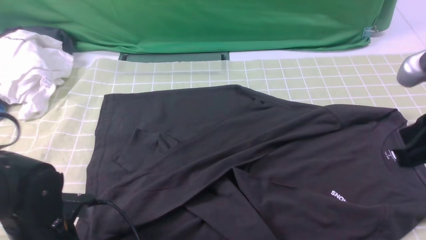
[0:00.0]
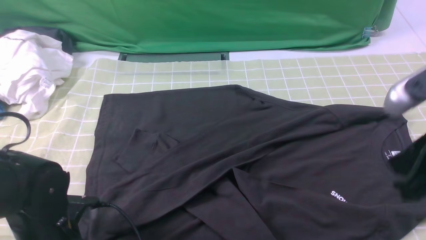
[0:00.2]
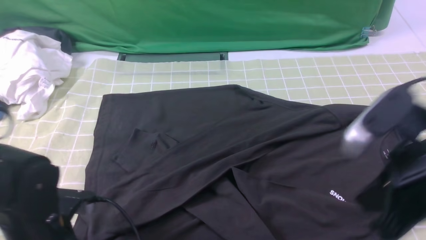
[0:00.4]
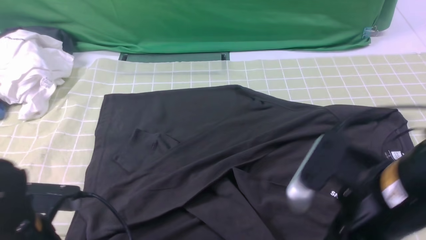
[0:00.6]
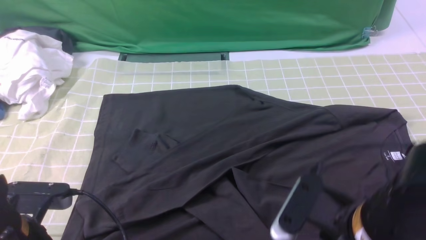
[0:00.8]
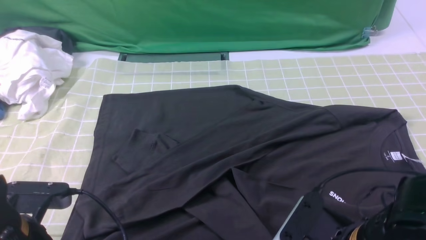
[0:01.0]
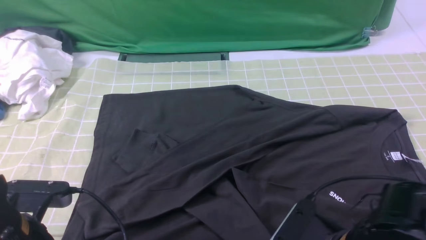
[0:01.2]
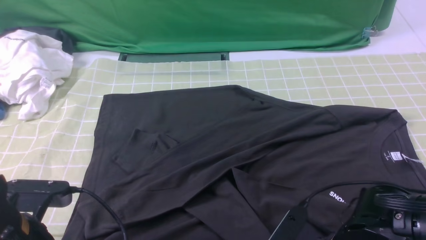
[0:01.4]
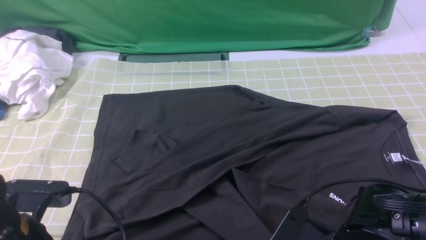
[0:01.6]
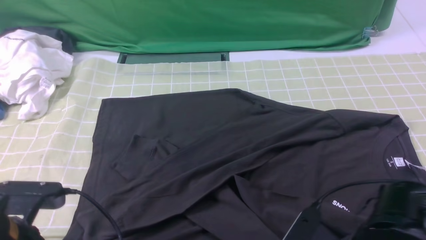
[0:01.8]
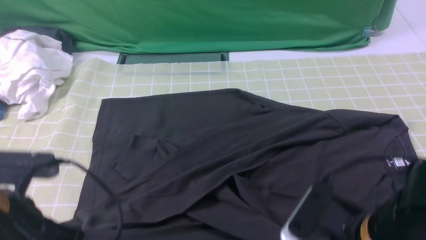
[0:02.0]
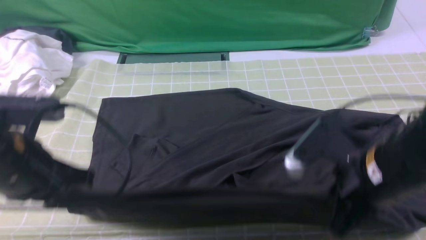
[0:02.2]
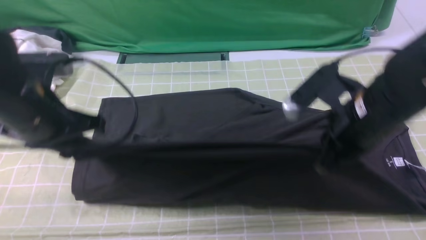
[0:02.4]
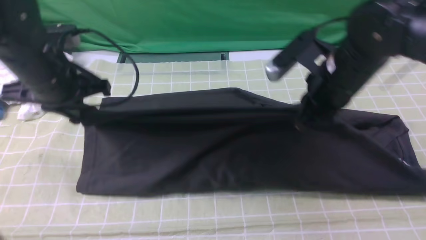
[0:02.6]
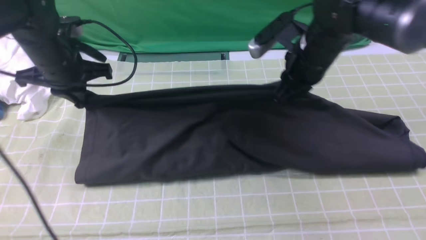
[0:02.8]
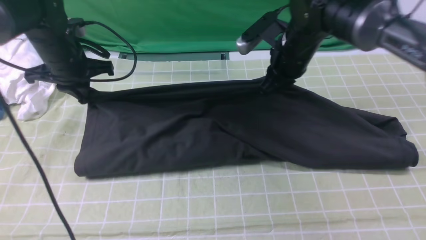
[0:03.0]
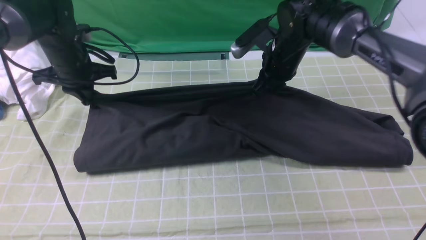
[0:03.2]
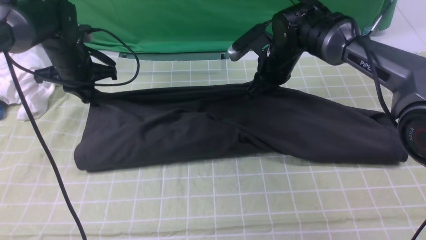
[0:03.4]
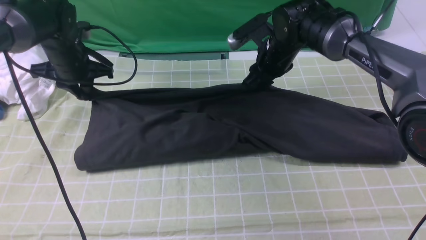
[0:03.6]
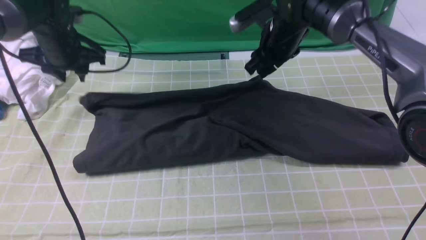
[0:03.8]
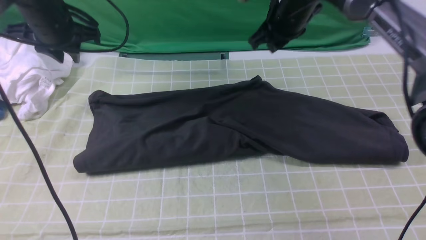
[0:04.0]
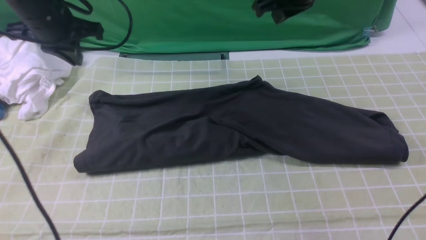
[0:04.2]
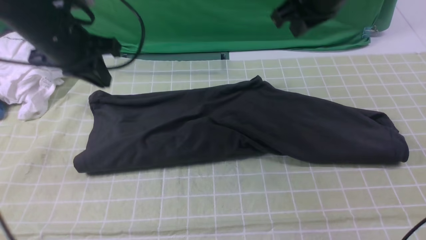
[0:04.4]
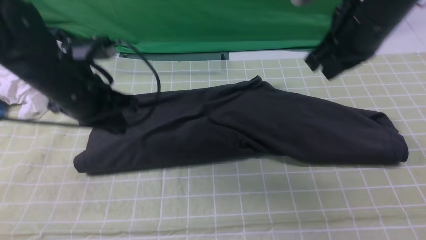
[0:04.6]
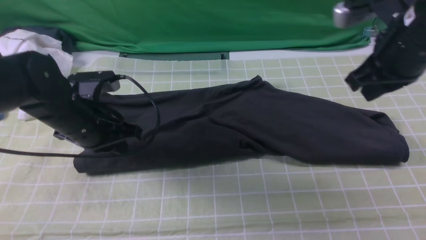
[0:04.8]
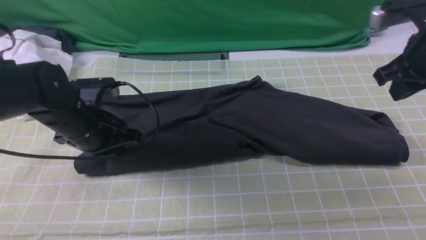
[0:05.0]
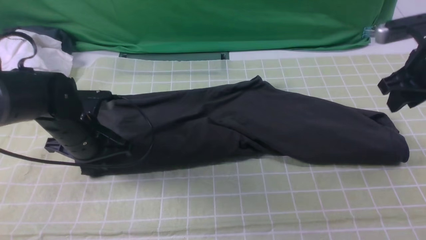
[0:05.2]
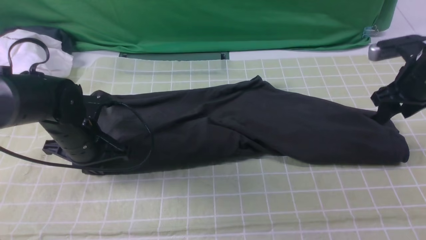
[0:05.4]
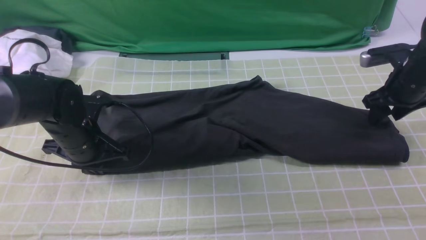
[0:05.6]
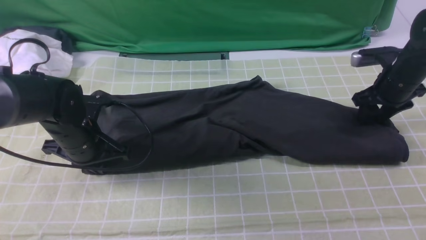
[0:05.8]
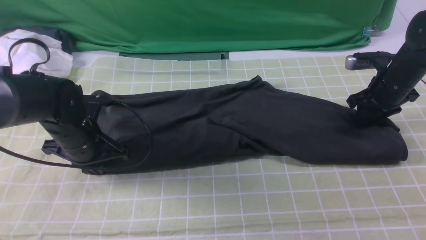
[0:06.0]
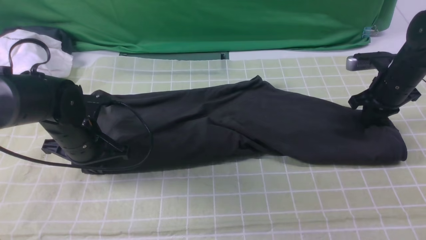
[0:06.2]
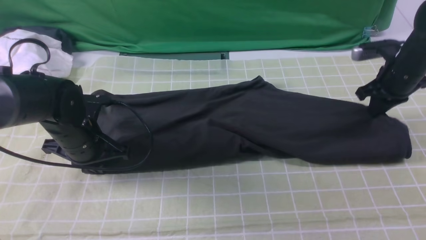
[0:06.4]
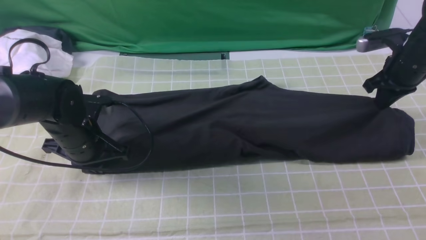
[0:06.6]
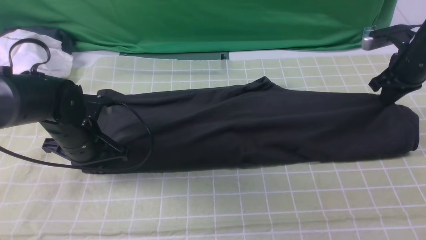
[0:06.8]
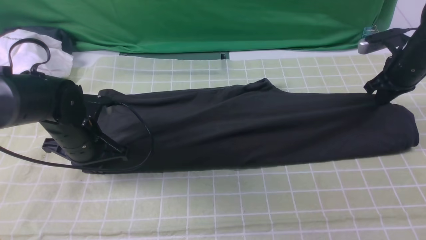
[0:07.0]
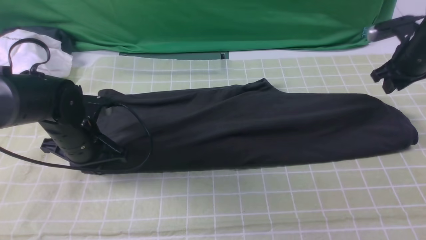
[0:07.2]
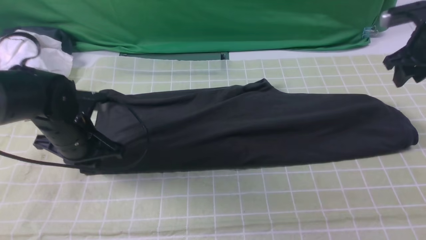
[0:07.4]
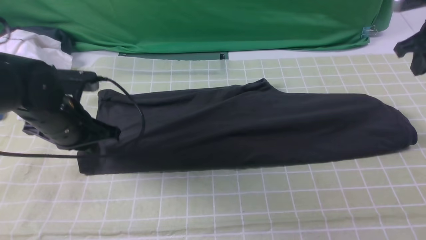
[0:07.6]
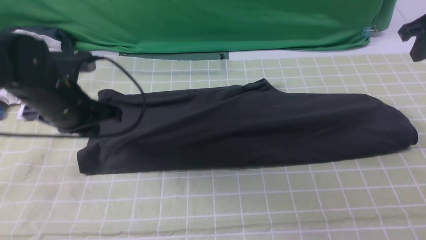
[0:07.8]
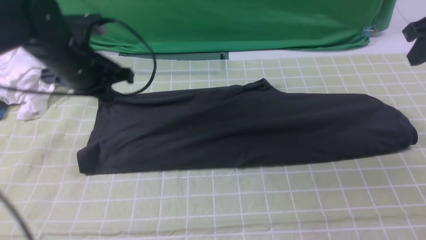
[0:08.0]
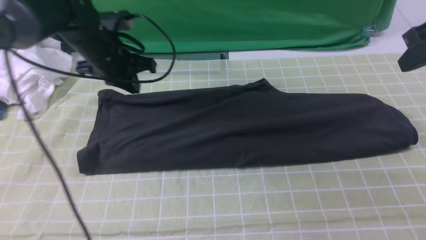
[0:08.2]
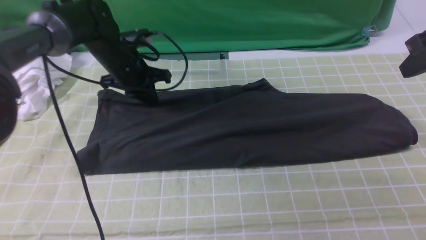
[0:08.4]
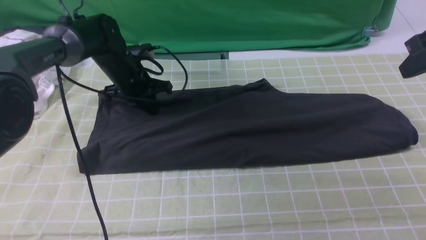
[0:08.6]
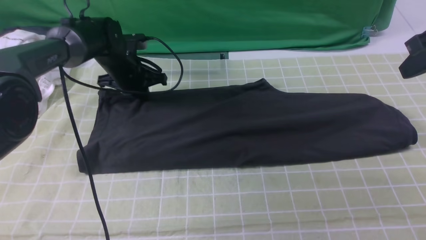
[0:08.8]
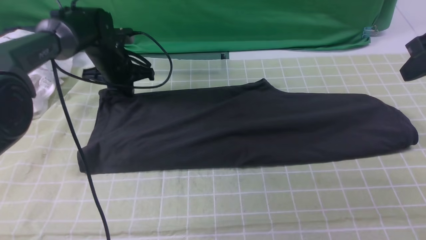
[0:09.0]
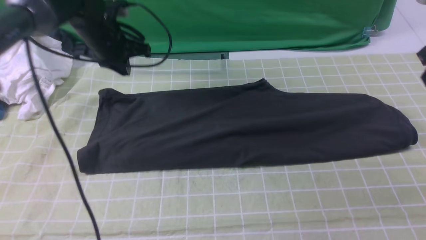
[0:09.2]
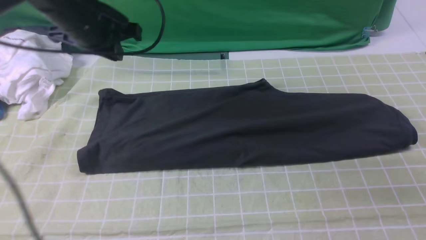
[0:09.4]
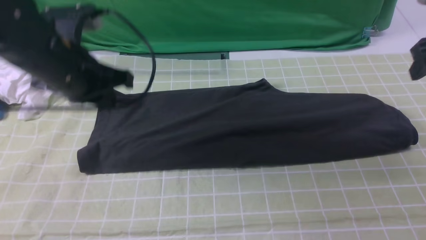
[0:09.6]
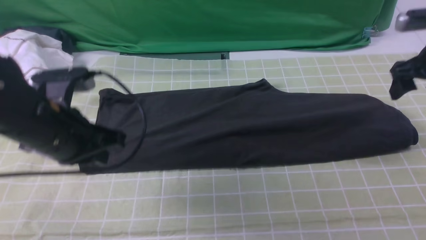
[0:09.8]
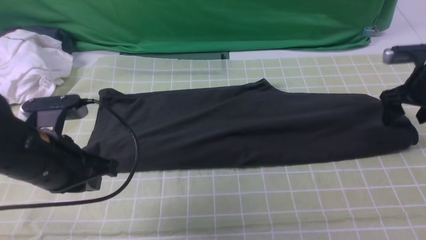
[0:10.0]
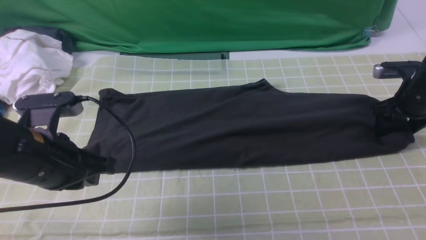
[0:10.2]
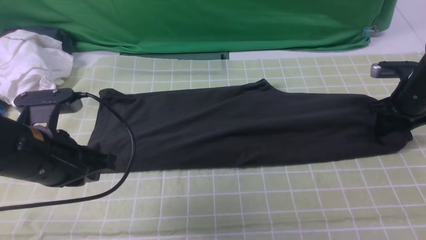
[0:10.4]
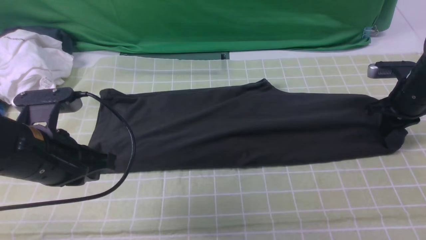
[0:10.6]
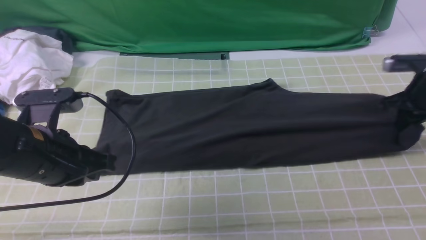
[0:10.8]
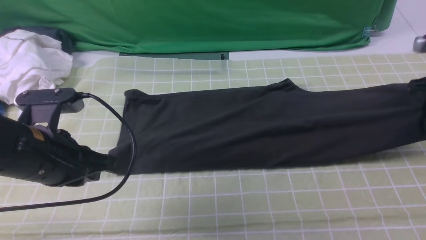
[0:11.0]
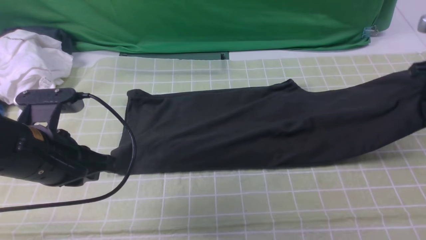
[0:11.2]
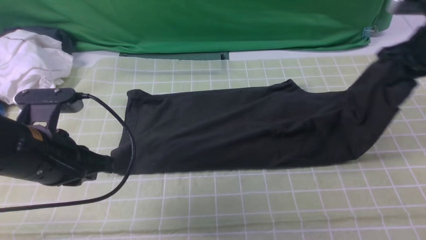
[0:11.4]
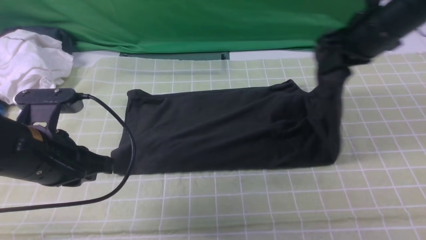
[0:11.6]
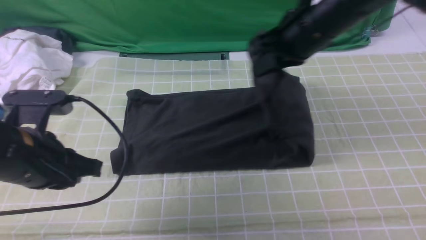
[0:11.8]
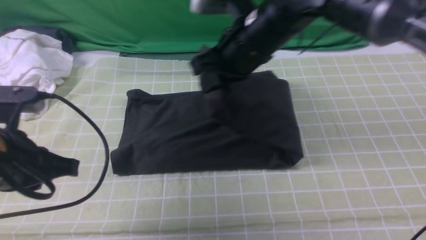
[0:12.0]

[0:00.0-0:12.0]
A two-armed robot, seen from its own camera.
Step, 0:00.0 to 0:01.4: use both arms simultaneously to clamp the lower edge of the clothing fabric.
Step, 0:01.8 to 0:03.8: use both arms to drag the lower edge of the fabric forward and fold it over the upper edge.
Step, 0:04.0 to 0:10.6: use the right arm to clamp the right edge of the fabric.
0:00.0 to 0:01.6: The right gripper moves downward and to the left, roughly 20 cm, and opens, then closes once more; the left gripper is displaced upward by some 5 cm, and closes its fingers.
0:01.6 to 0:03.0: Both grippers move forward, approximately 30 cm.
0:03.0 to 0:04.4: The right gripper shifts about 15 cm upward and backward, and opens, then closes again; the left gripper shifts some 10 cm backward and upward, and opens, then closes again.
0:04.4 to 0:06.0: The right gripper travels downward and to the right by roughly 25 cm, and opens. The left gripper travels downward by about 15 cm.
0:06.0 to 0:07.6: The left gripper moves upward, roughly 5 cm, while the right gripper goes some 15 cm upward.
0:07.6 to 0:09.0: The right gripper is displaced backward by roughly 10 cm. The left gripper heads forward, covering roughly 15 cm.
0:09.0 to 0:10.4: The right gripper is displaced downward and forward by roughly 20 cm, and opens its fingers; the left gripper is displaced backward by approximately 25 cm.
0:10.4 to 0:12.0: The right gripper travels to the left and upward by roughly 35 cm, and closes its fingers.

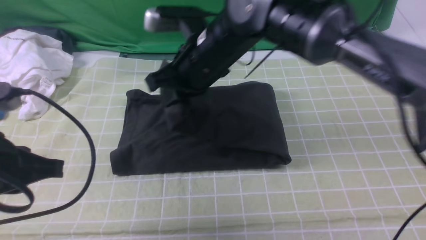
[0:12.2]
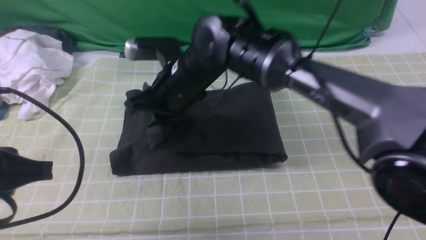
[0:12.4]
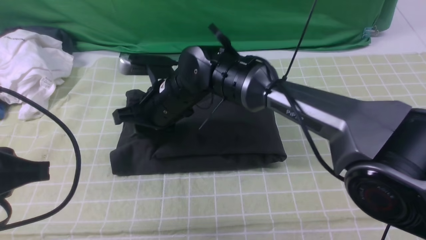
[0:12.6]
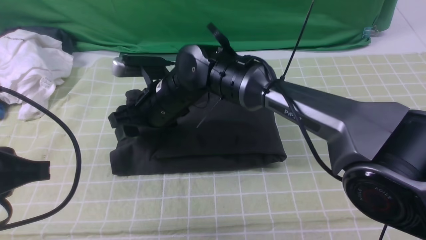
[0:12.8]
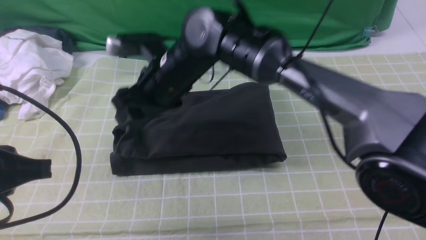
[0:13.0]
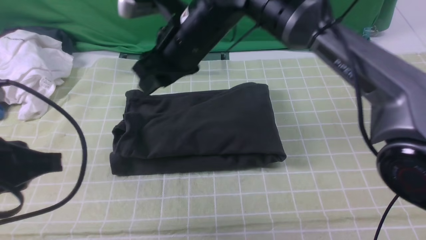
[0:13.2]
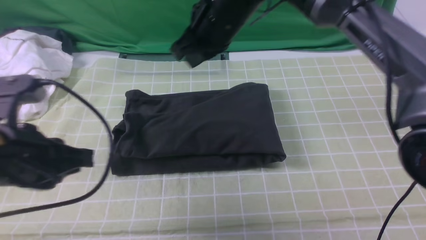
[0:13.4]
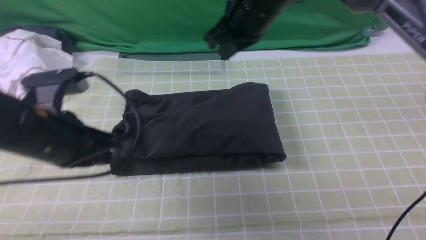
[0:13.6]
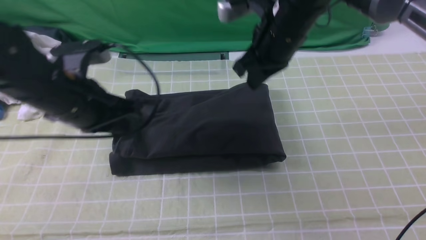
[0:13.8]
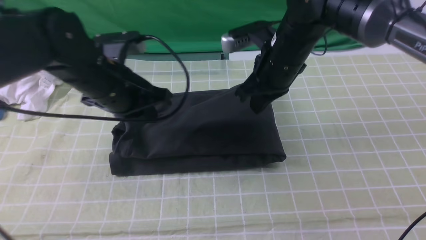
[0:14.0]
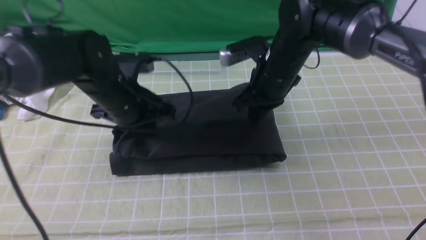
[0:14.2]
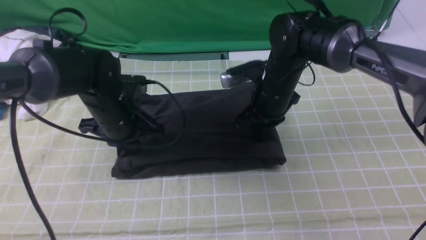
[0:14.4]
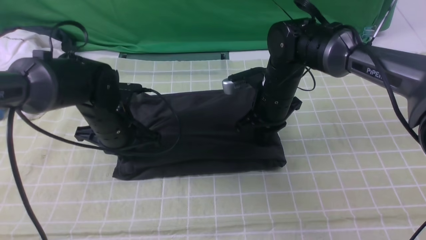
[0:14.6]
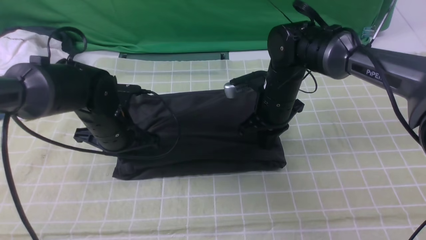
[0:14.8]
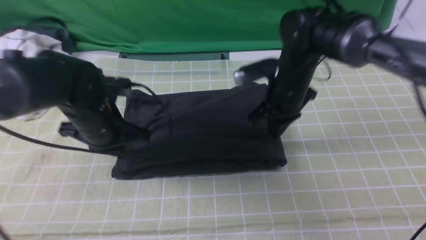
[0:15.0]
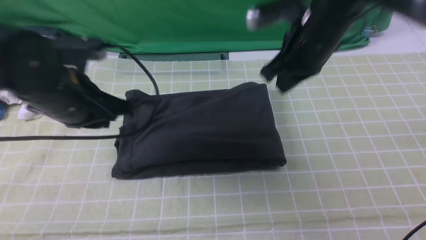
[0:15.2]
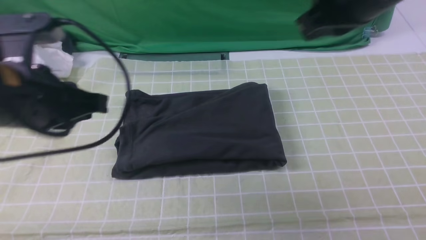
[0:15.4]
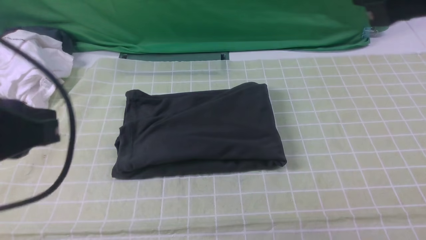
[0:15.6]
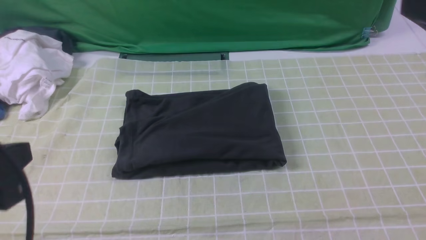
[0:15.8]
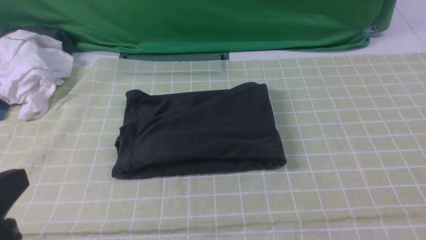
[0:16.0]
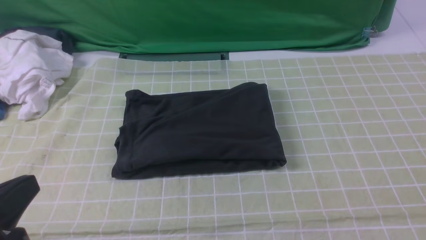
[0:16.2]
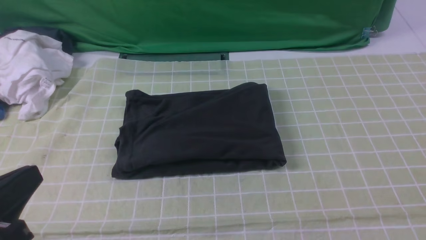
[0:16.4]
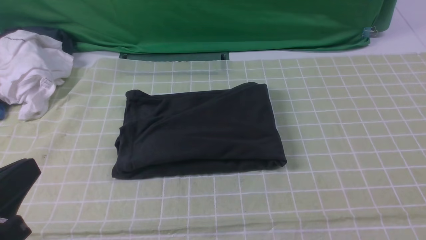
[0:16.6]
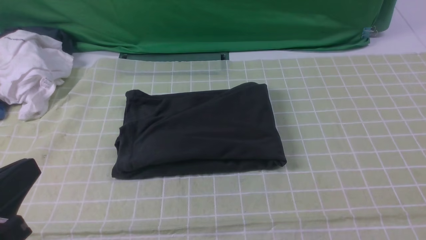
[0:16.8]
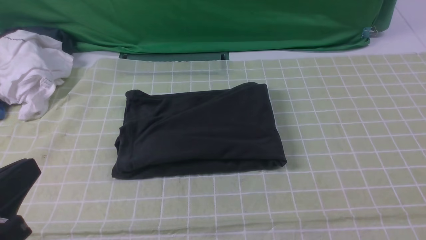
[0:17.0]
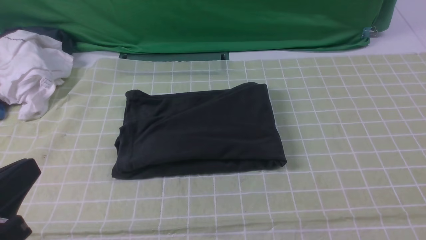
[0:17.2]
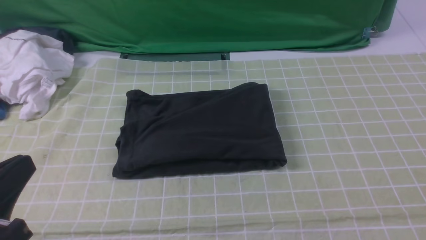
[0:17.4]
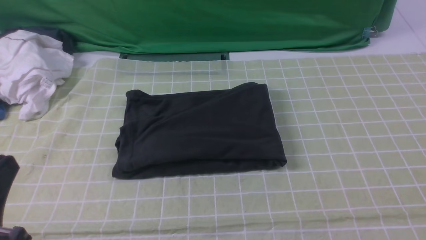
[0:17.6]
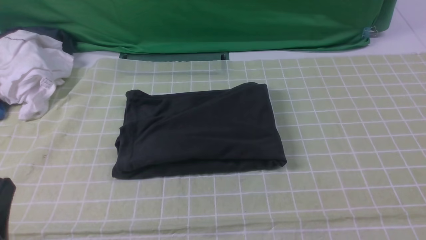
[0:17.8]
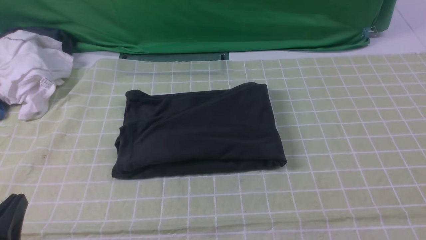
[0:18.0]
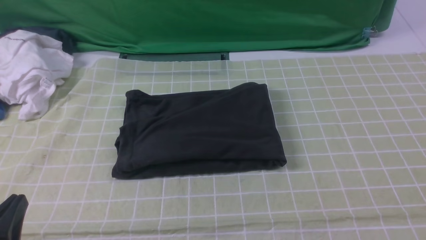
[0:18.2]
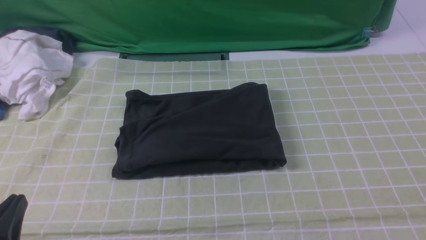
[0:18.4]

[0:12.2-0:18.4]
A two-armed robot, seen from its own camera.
0:12.2 to 0:13.8: The left gripper heads forward and to the right, covering approximately 15 cm. Meanwhile the right gripper moves to the right, roughly 10 cm, and opens, then closes once more.
0:13.8 to 0:15.4: The left gripper is displaced backward and upward by approximately 10 cm, while the right gripper goes about 20 cm upward, backward and to the right.
0:15.4 to 0:16.8: The left gripper travels backward by about 15 cm. Meanwhile the right gripper goes some 30 cm backward and to the right.
0:16.8 to 0:18.4: The left gripper goes about 10 cm downward.
